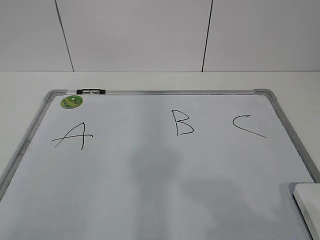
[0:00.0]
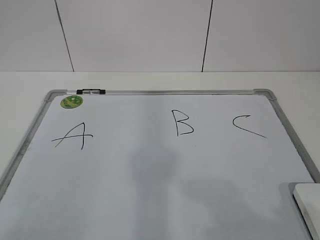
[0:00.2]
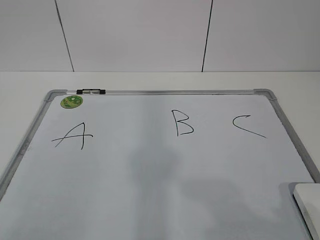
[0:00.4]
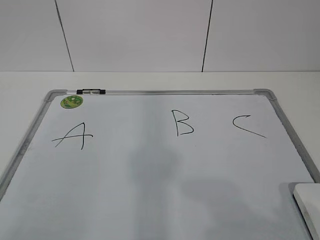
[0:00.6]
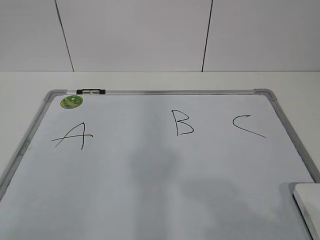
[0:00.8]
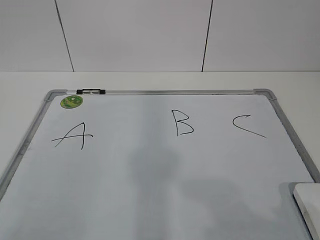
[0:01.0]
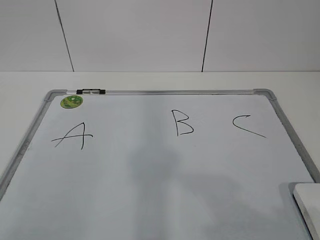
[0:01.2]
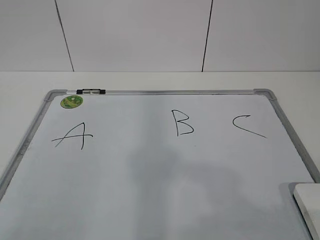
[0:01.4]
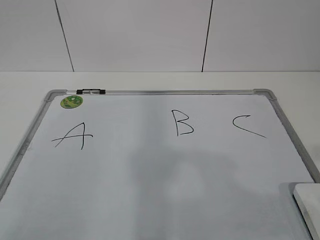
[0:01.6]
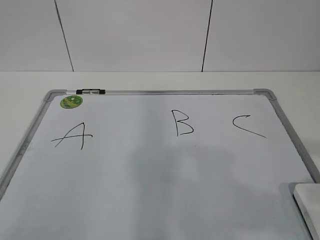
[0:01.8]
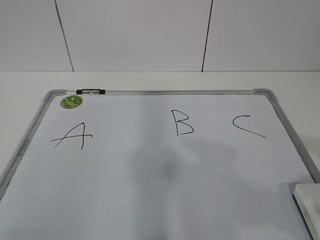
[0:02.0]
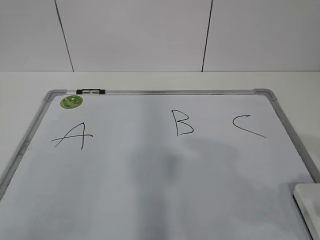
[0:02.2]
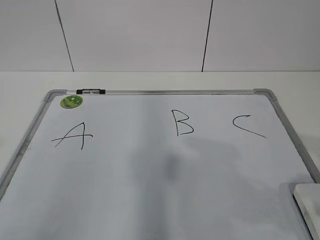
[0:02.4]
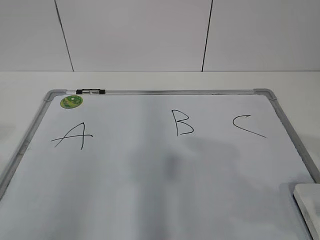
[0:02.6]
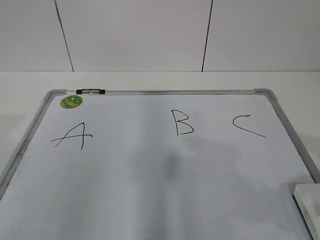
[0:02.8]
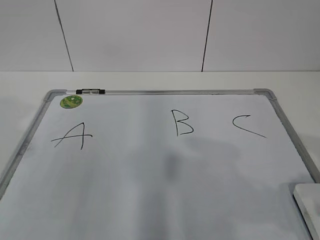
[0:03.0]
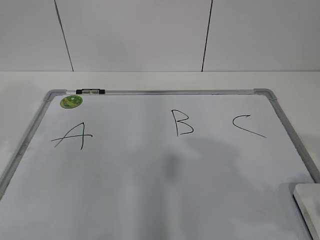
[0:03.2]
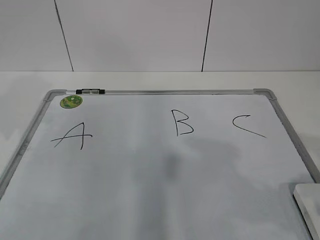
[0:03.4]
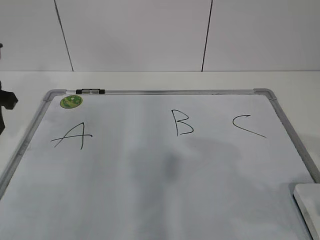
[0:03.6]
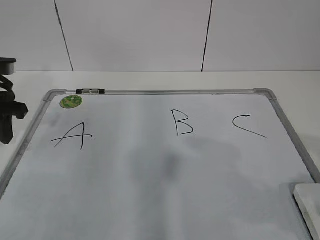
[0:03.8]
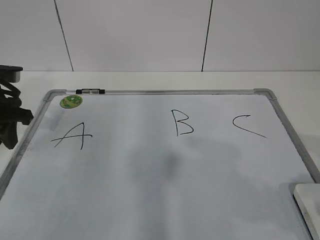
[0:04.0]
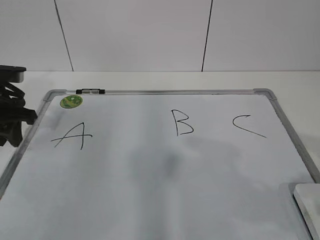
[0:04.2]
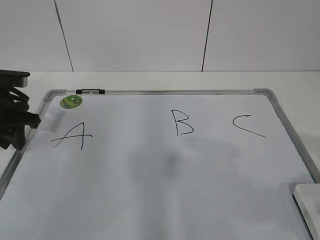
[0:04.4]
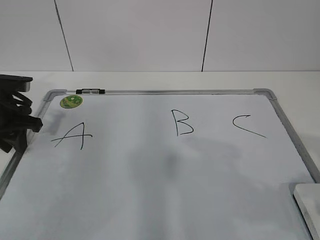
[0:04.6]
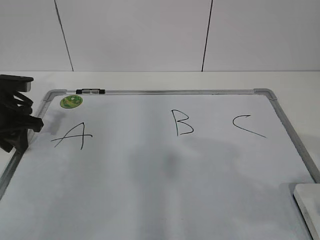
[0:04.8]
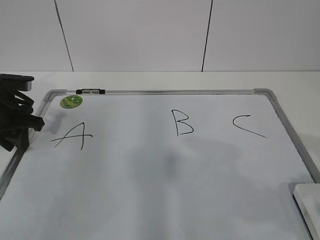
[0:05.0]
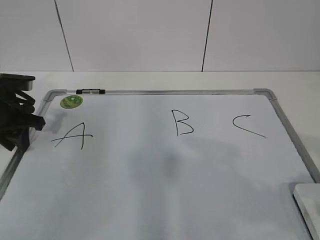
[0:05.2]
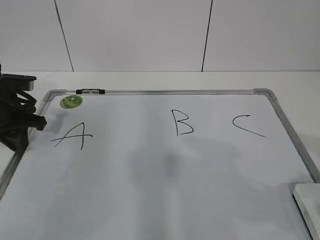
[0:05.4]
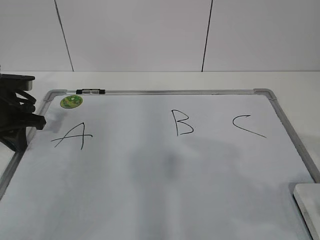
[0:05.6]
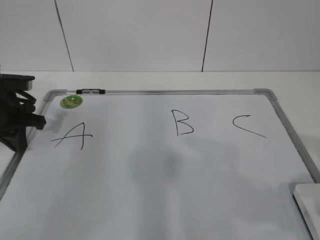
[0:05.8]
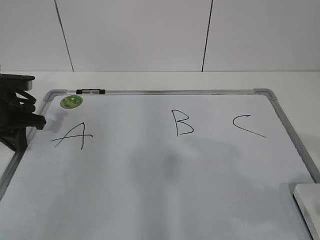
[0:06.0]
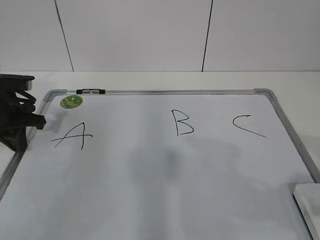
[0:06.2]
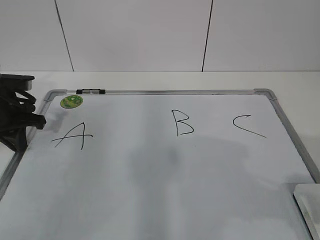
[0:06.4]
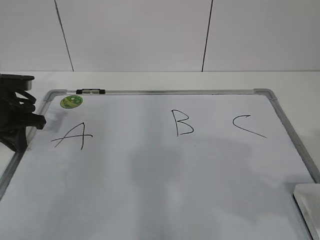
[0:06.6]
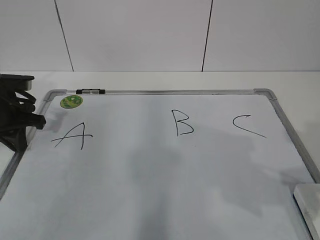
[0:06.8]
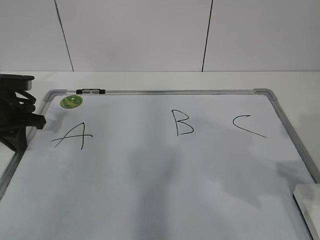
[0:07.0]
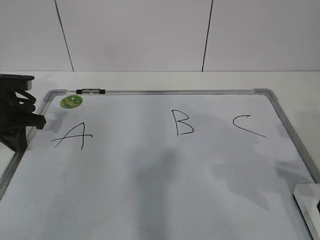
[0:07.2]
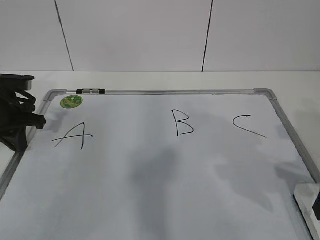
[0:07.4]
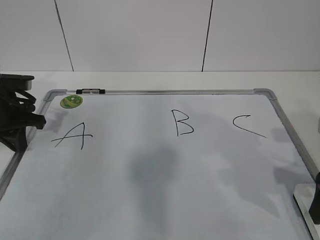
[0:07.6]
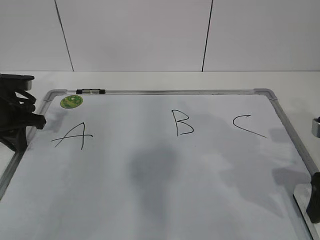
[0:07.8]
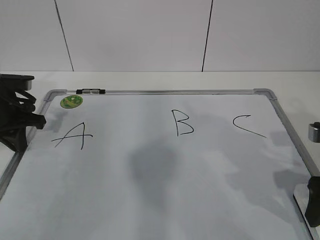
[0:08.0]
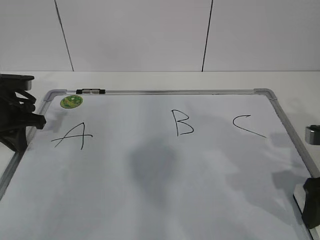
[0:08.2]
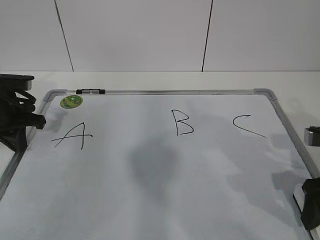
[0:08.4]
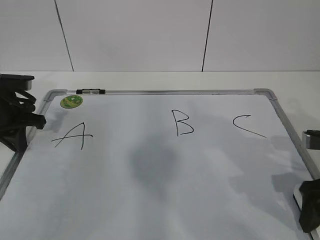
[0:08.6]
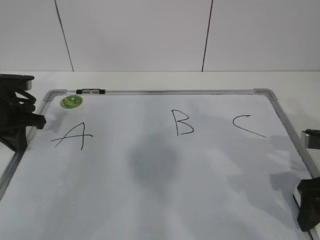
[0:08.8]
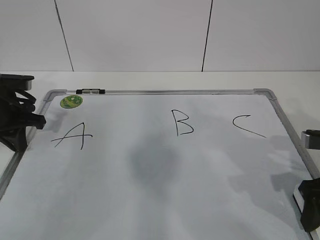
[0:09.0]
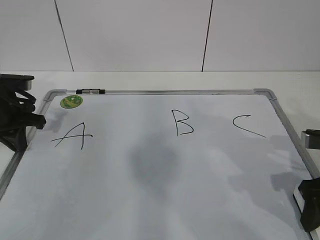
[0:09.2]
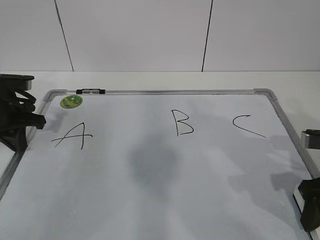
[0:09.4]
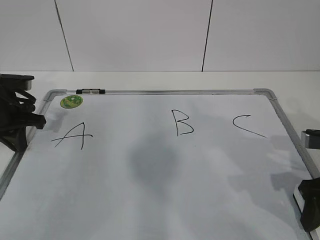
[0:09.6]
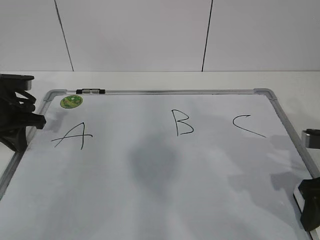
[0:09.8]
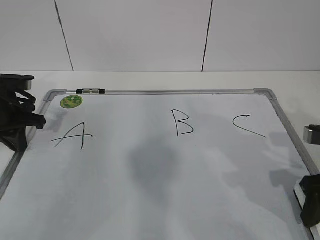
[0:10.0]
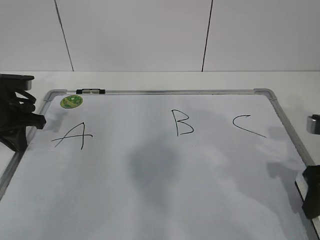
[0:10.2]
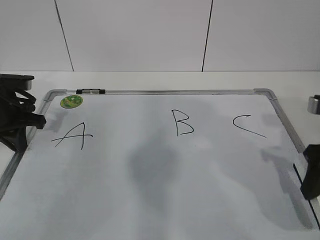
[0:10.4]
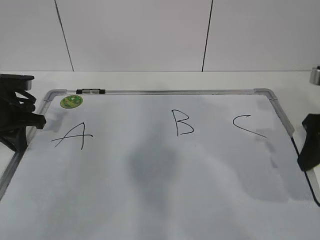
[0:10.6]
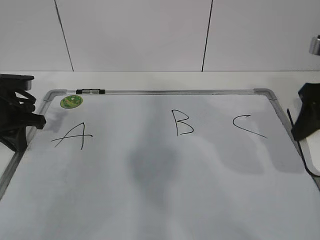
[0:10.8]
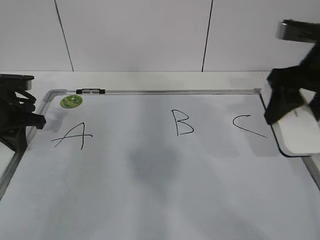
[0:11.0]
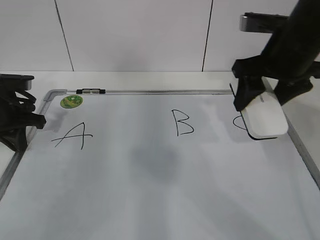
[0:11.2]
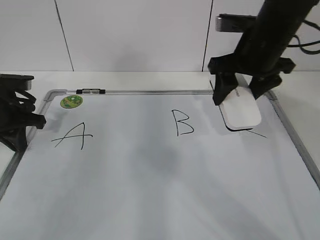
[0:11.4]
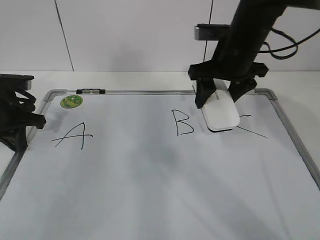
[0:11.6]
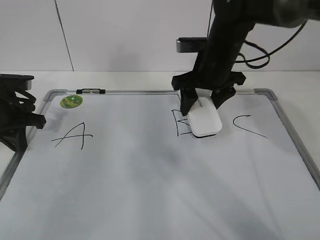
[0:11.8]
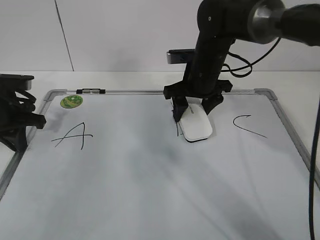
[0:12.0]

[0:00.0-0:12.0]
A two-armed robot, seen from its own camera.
Task of the whole recording: pick up the eraser on the blackboard and erase the letter "B".
Step, 0:00.0 to 0:04.4: Hold the drawing board steady with your left hand.
0:03.0 to 0:04.4: The left gripper moves forward and downward, some 20 cm.
0:04.4 to 0:06.0: The left gripper closes.
0:06.0 to 0:07.6: The right gripper shifts roughly 15 cm forward and downward, and opens its fingers.
0:07.6 to 0:09.0: The right gripper closes its fingers.
0:09.0 to 0:10.4: The right gripper changes place by about 5 cm.
0:10.4 to 0:12.0: The right gripper goes about 25 cm forward and to the left.

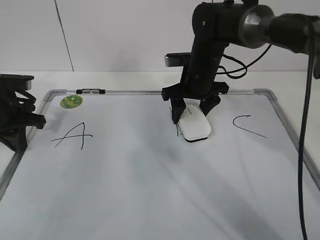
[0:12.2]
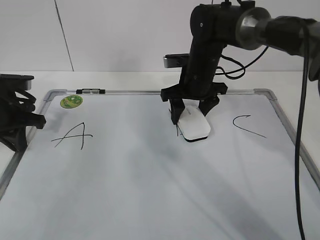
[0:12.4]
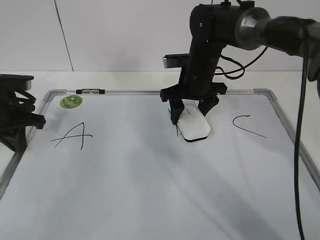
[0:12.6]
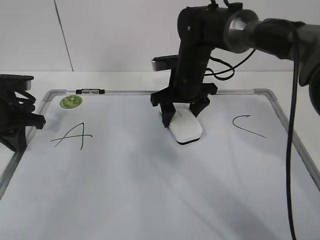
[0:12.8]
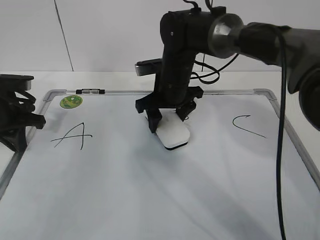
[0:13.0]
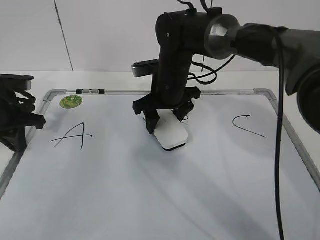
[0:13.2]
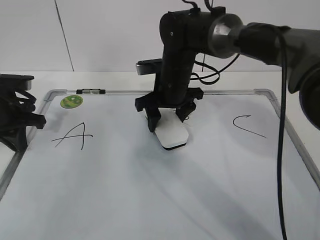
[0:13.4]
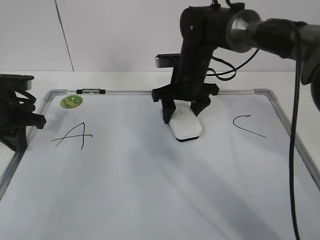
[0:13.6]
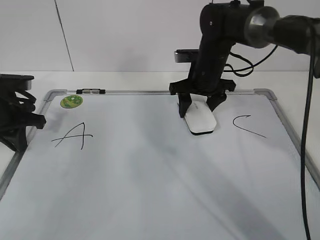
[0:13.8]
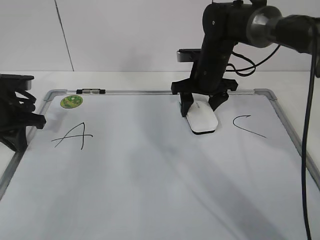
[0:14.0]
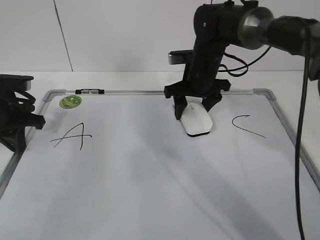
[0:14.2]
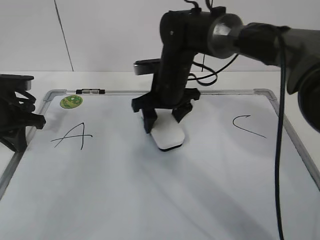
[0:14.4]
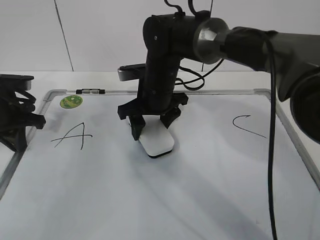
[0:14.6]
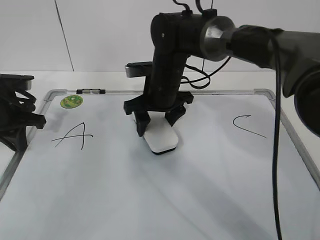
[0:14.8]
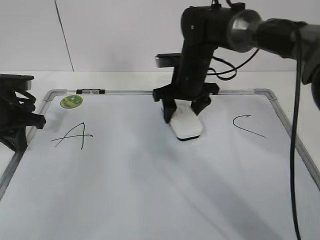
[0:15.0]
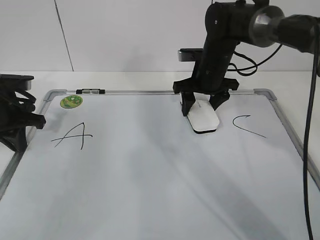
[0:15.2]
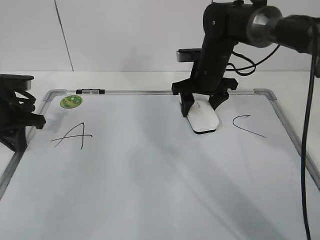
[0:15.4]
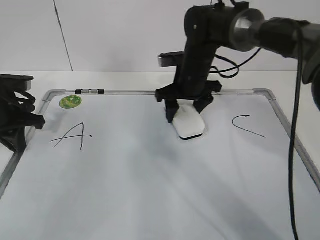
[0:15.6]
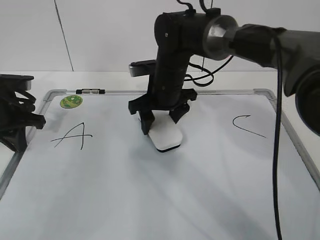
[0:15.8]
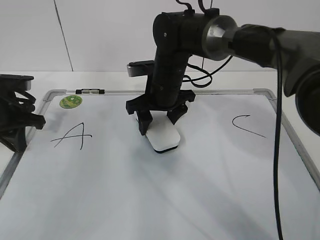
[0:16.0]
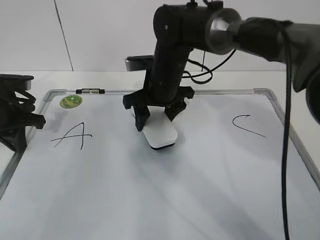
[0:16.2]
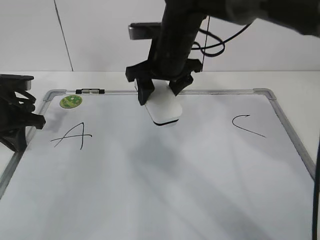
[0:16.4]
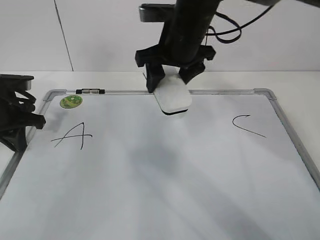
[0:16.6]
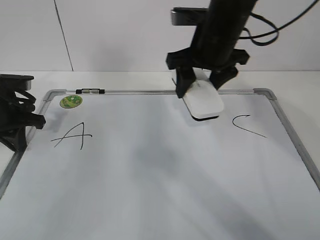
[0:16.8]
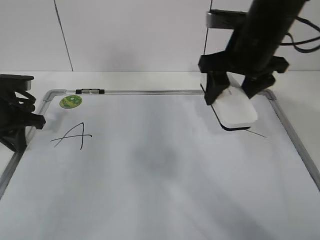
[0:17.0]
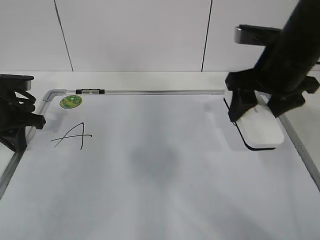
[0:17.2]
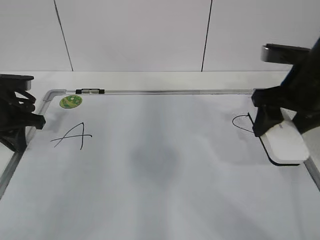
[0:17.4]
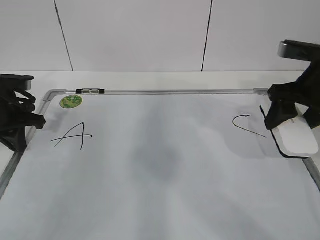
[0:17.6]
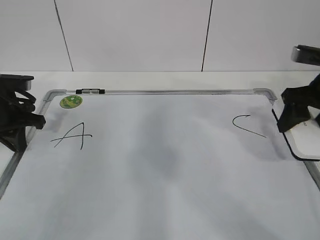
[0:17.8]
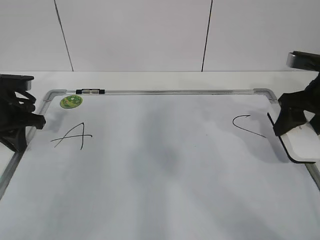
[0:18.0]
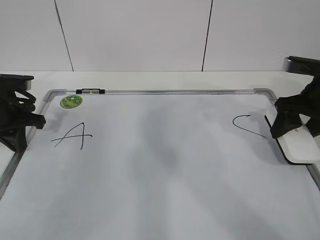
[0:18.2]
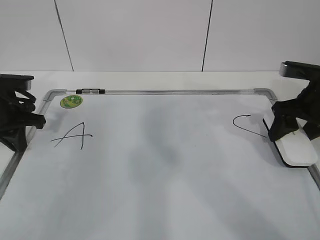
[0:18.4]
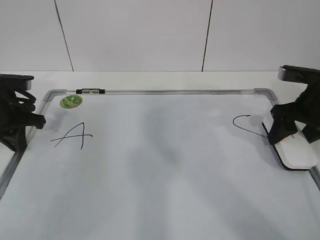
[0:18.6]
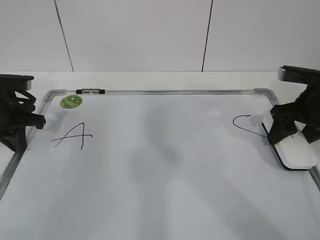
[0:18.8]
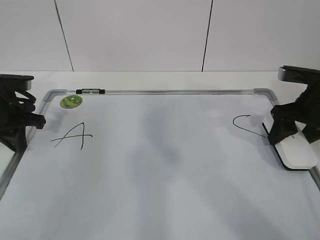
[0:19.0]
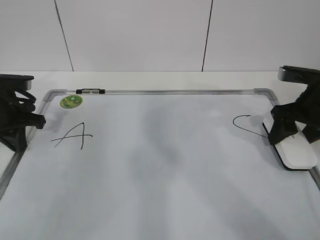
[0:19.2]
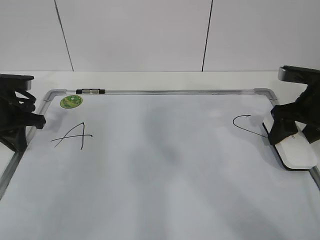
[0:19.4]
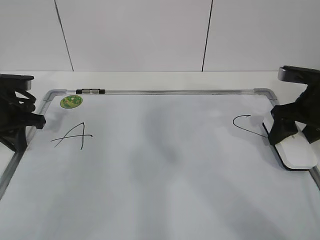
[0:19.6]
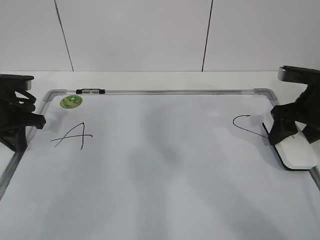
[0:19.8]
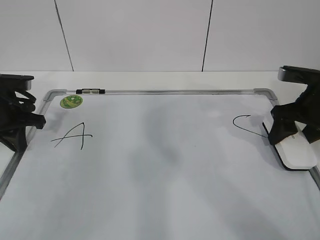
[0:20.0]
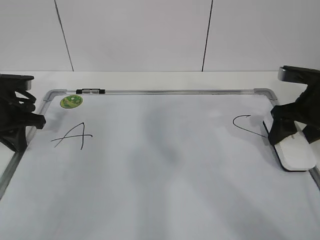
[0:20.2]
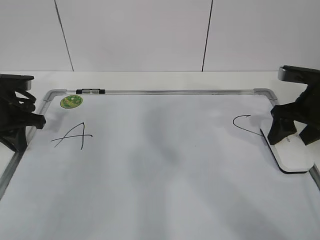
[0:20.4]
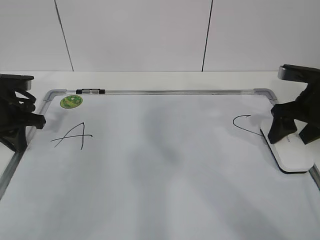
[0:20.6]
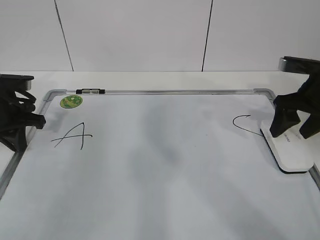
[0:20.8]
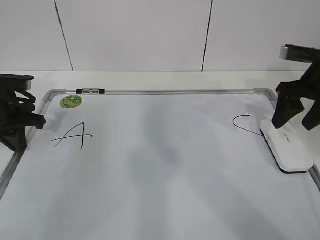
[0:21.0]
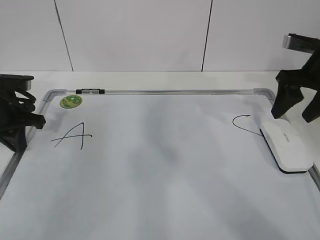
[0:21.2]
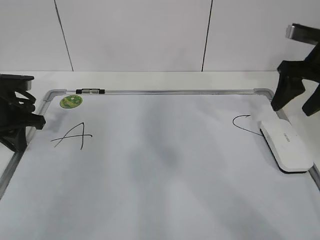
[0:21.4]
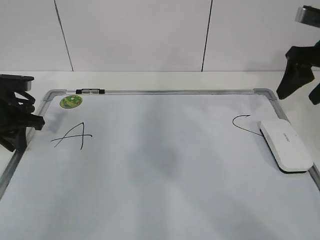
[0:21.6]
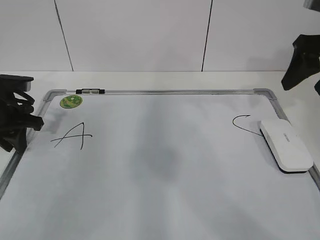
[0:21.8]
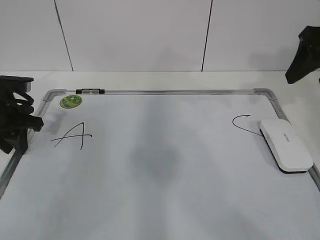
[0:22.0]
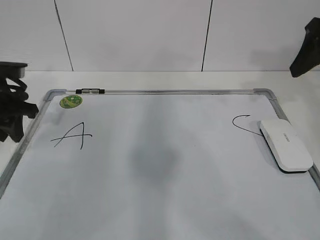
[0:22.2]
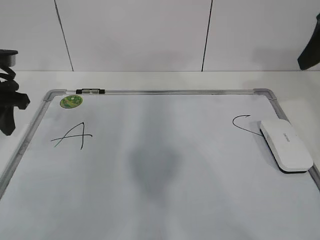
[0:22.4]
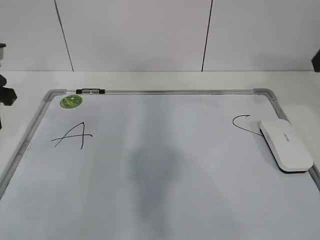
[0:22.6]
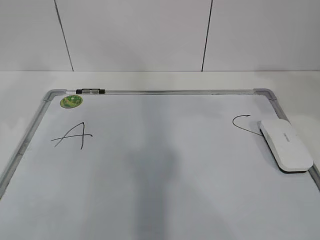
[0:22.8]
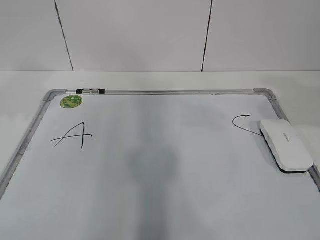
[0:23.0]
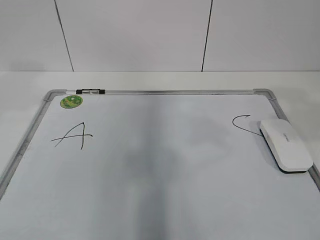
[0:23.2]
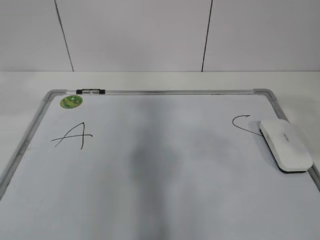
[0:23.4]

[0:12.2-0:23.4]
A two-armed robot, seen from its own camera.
Task of the whole recording: pick up the eraser on the blackboard and erase the letter "B".
Step, 0:13.4 to 0:16.8: Put down the eraser with your right hand.
0:12.2 to 0:13.8: The right gripper goes to the left and returns, about 5 cm each way.
0:13.8 to 0:15.4: The right gripper travels to the left and back again, about 10 cm each way.
0:15.4 to 0:17.0: The right gripper moves upward and backward, roughly 15 cm, and reaches roughly 10 cm to the left, then returns.
0:17.0 to 0:18.6: The right gripper heads to the right and downward, covering roughly 20 cm.
0:18.6 to 0:20.2: Both grippers stay about where they are.
0:20.2 to 0:21.8: The right gripper travels upward by roughly 10 cm, while the left gripper opens its fingers.
0:21.8 to 0:23.4: The left gripper heads upward and backward, covering approximately 35 cm. Meanwhile the right gripper goes approximately 25 cm backward.
